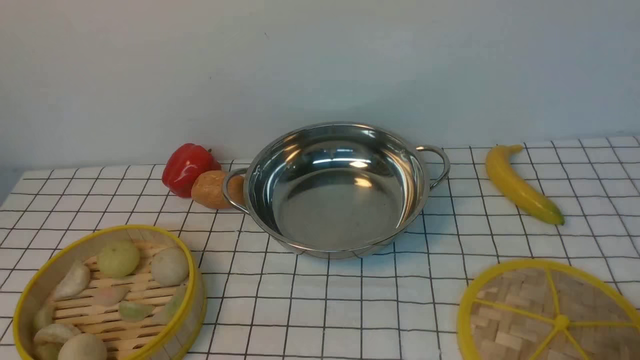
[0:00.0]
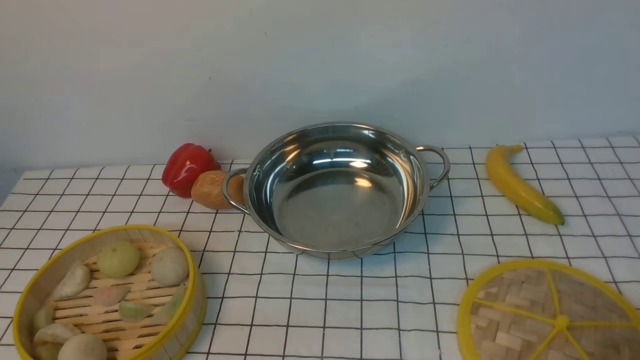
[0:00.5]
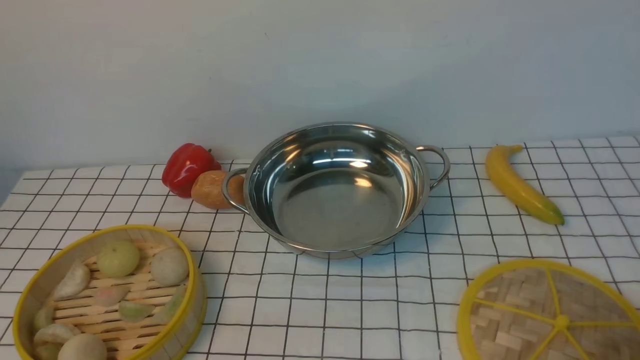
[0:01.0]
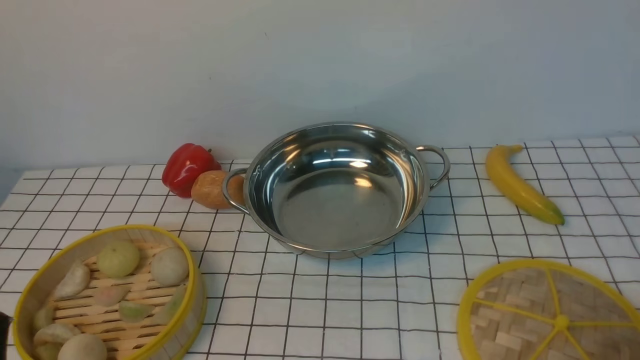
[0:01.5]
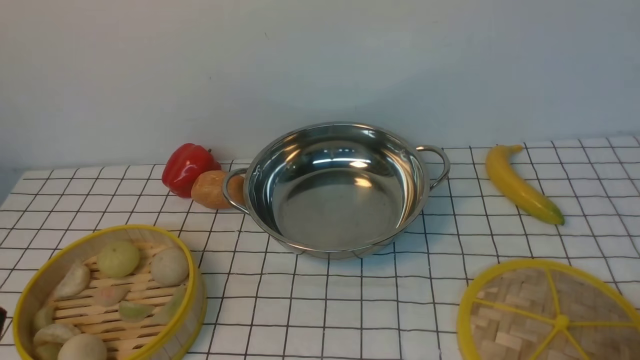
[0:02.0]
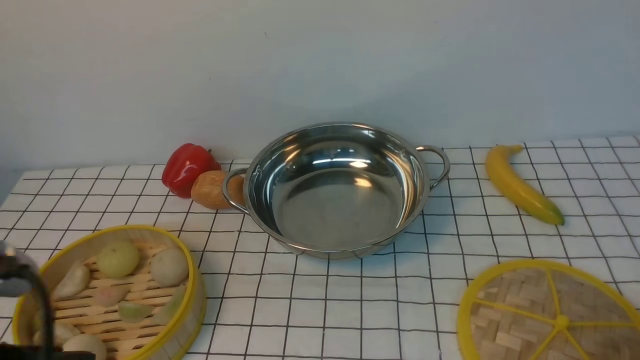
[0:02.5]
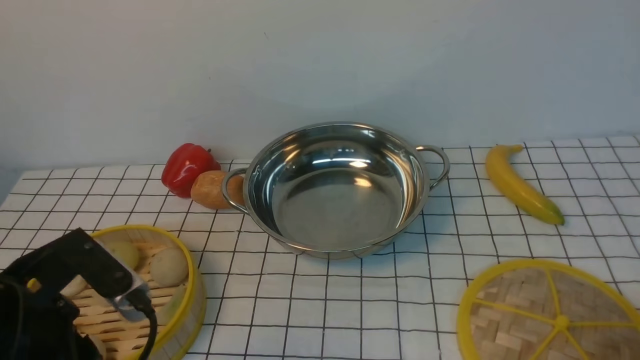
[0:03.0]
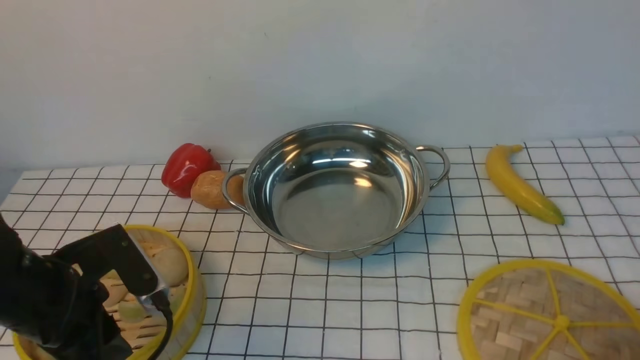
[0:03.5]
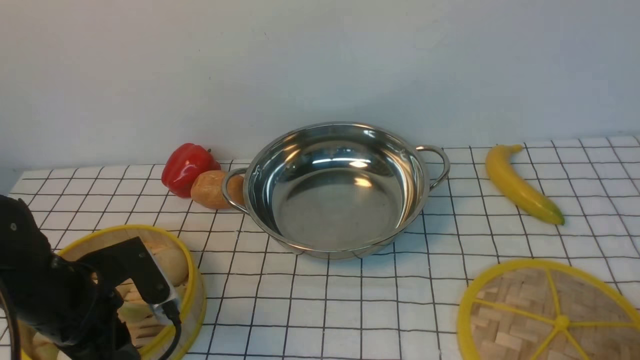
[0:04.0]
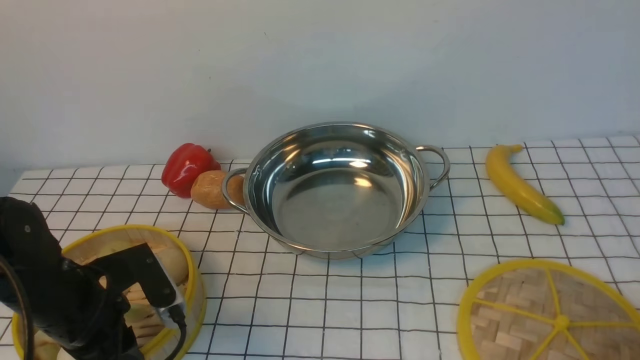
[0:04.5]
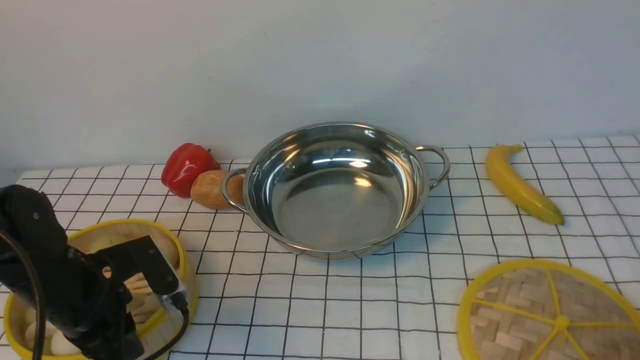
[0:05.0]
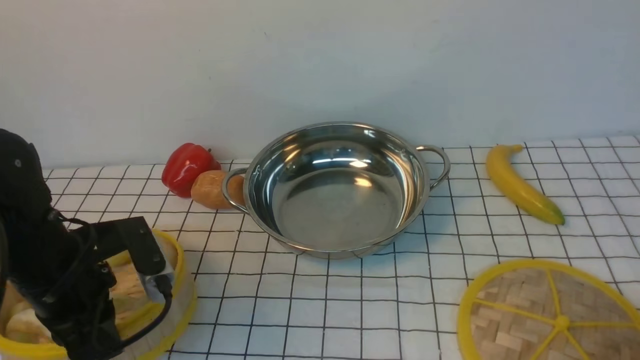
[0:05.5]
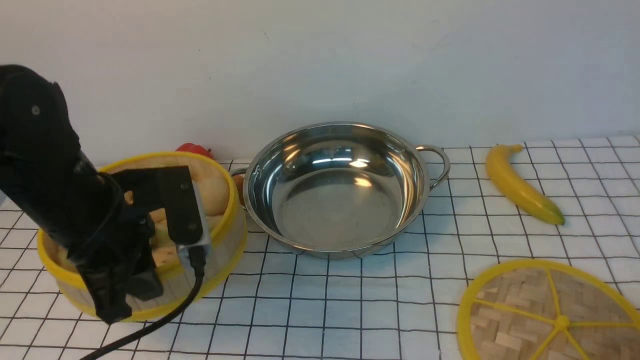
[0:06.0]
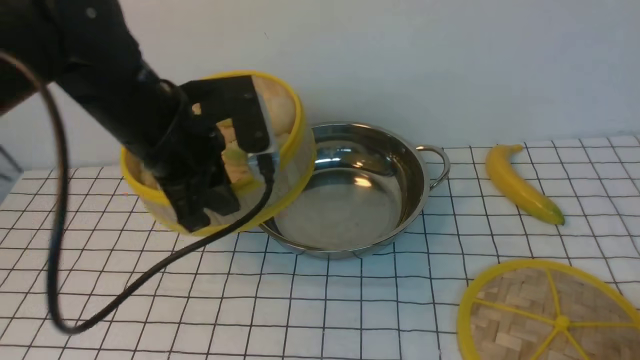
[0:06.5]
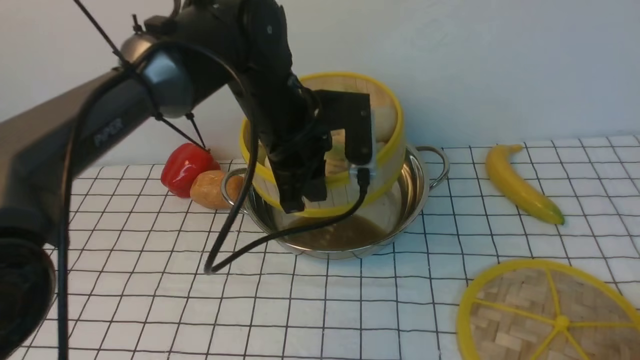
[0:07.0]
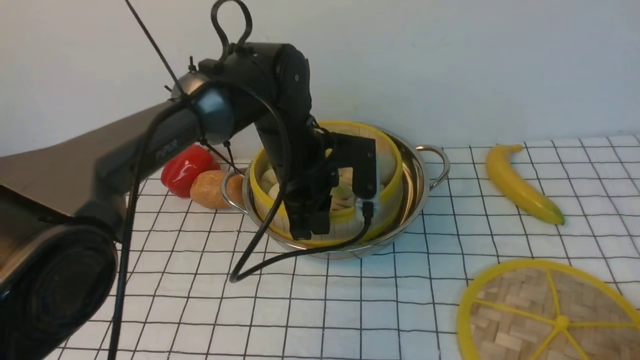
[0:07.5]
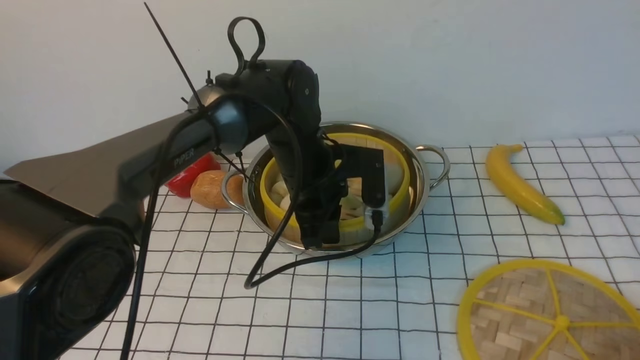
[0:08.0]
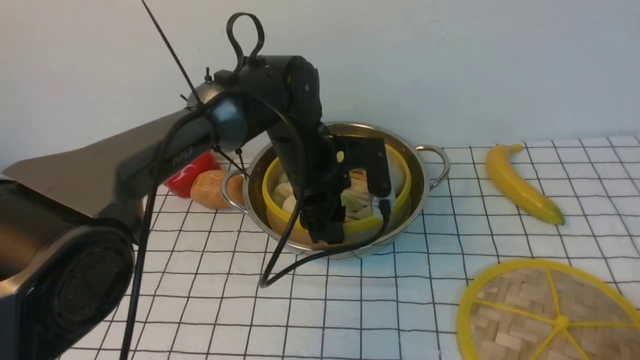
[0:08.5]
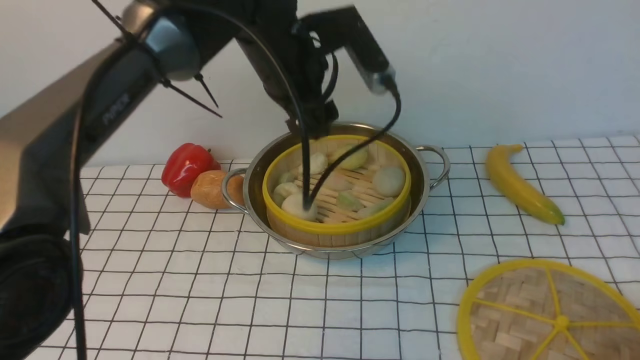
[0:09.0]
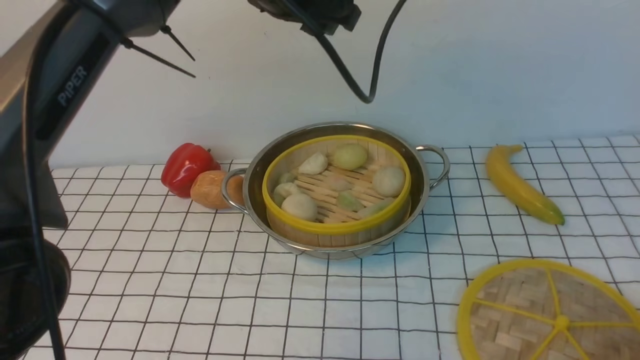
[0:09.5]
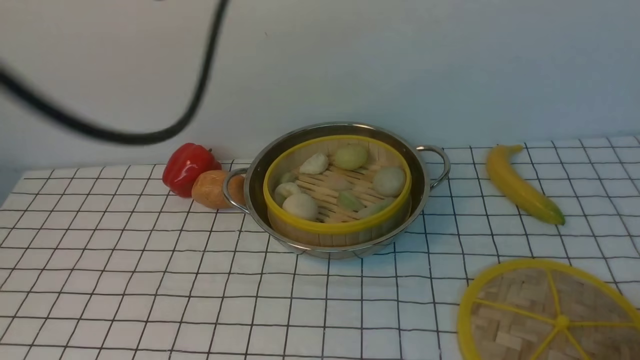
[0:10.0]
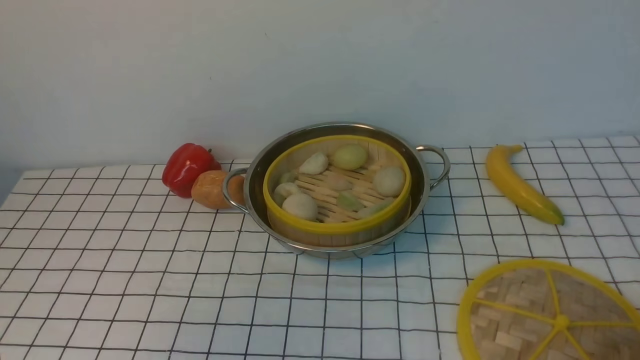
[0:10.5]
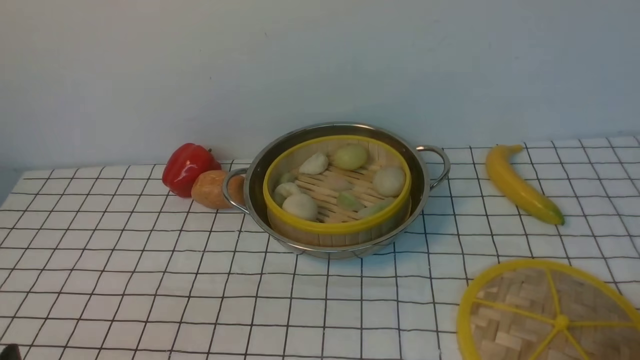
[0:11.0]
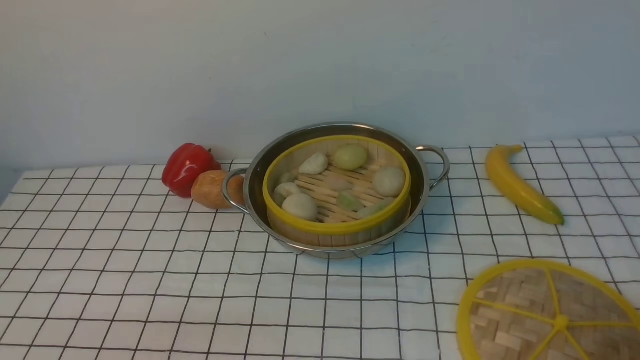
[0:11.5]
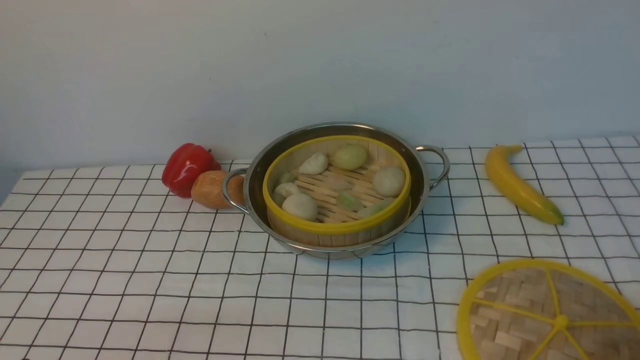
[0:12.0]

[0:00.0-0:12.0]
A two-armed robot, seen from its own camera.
Task of the whole recording: place the steamer in the pot on the white tablecloth, and put the lid on the steamer.
Step, 0:00.0 to 0:05.5: use the left arm to lift the steamer closest to it.
Step, 0:06.0 to 0:08.5: use the left arm to put the steamer into the iron steamer pot in the middle.
0:02.0 to 0:04.0: The left gripper is displaced forward and downward by approximately 20 cm.
0:04.0 to 0:06.0: The left gripper moves upward and to the right, approximately 10 cm, and closes its fingers.
0:06.0 to 0:08.0: The left gripper goes approximately 25 cm to the right, forward and downward.
0:08.0 to 0:10.0: The left gripper heads upward, to the left and backward, covering approximately 30 cm, and opens up.
0:10.0 to 0:12.0: The left gripper is displaced downward and backward by approximately 35 cm.

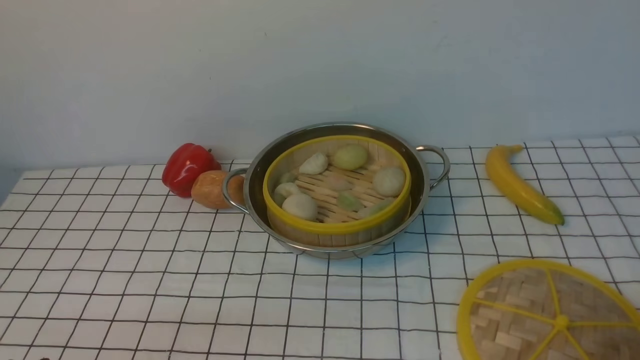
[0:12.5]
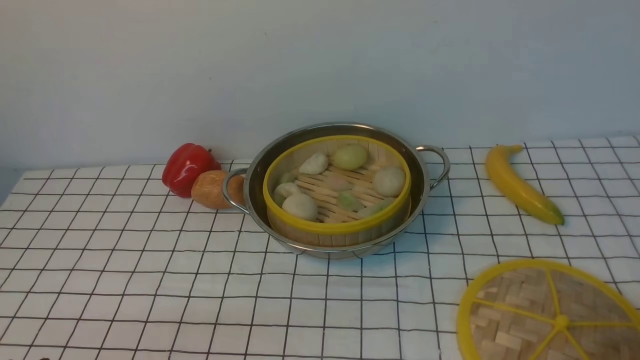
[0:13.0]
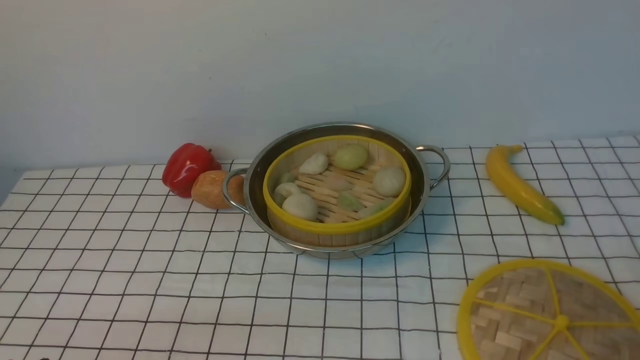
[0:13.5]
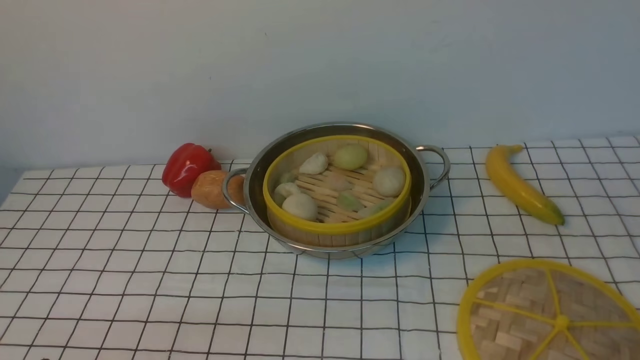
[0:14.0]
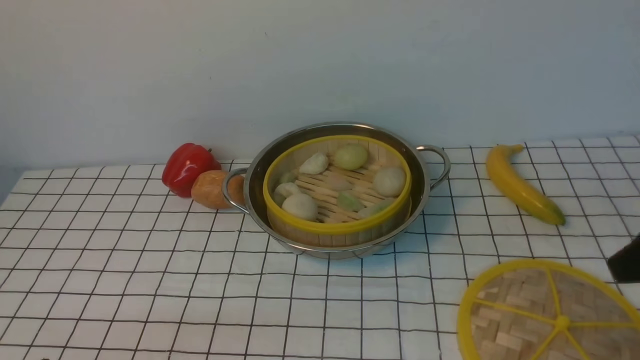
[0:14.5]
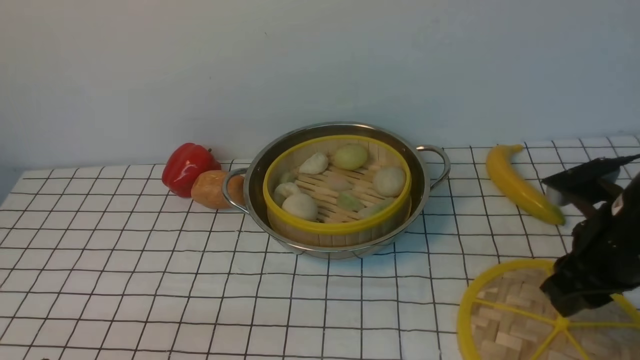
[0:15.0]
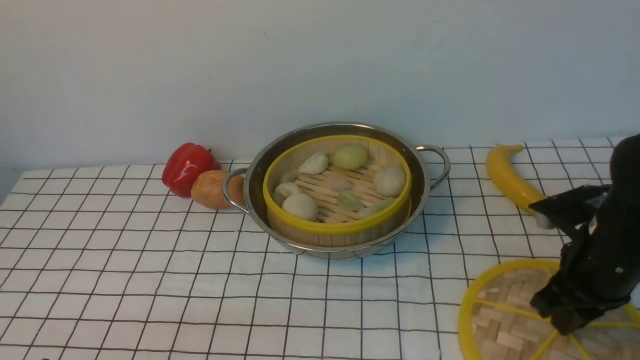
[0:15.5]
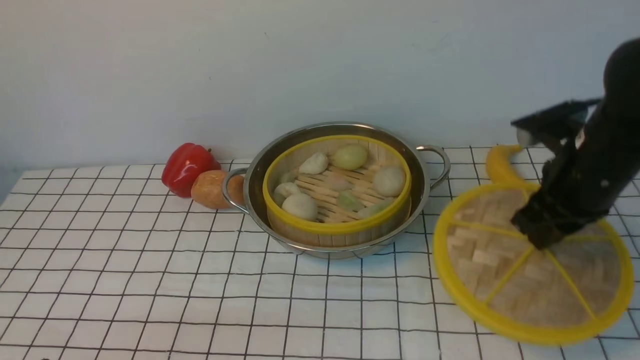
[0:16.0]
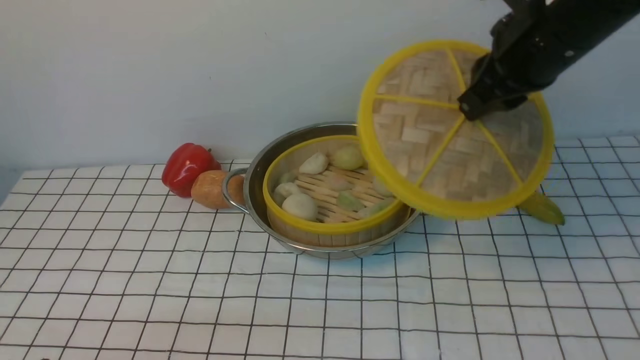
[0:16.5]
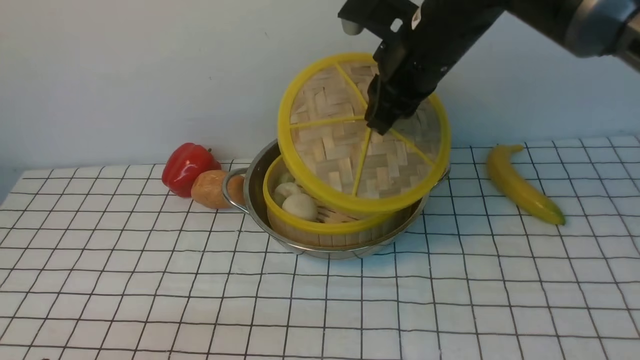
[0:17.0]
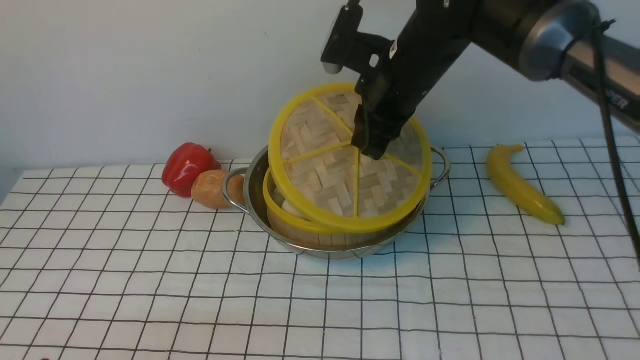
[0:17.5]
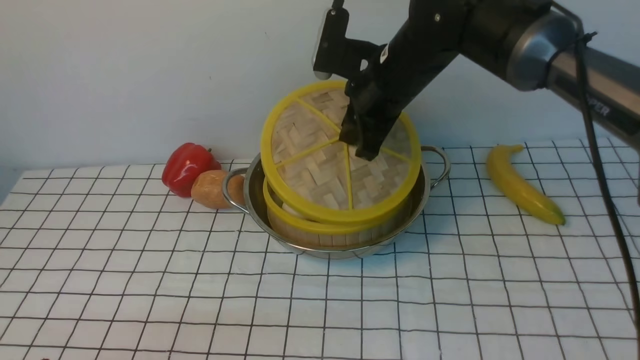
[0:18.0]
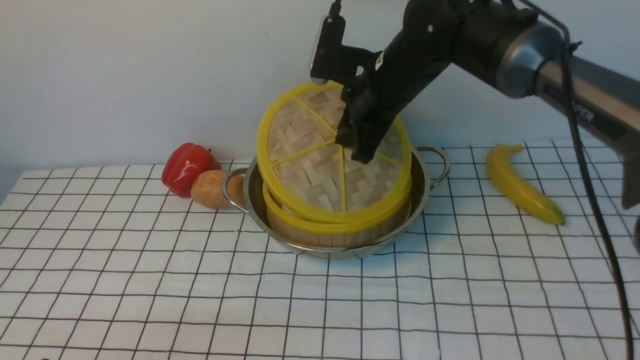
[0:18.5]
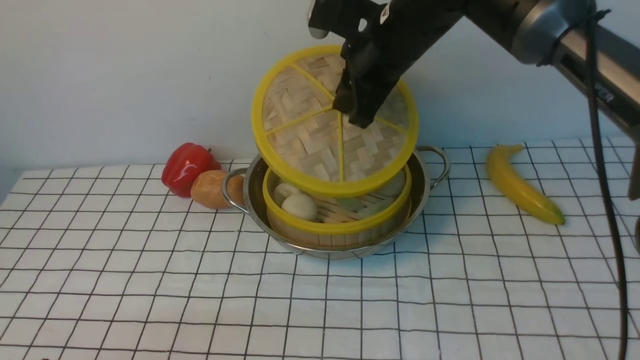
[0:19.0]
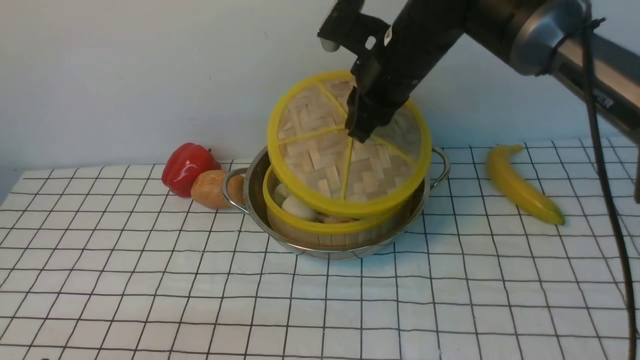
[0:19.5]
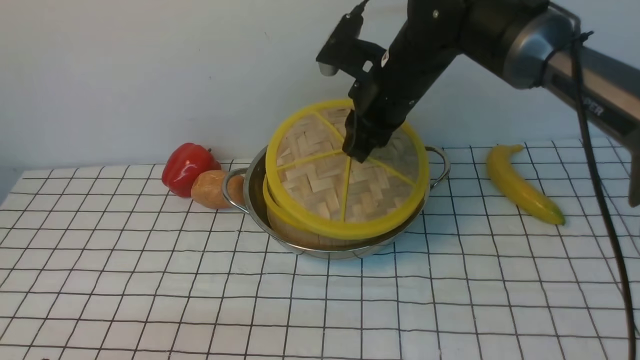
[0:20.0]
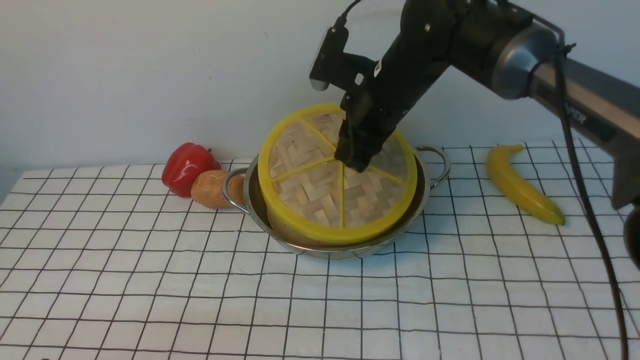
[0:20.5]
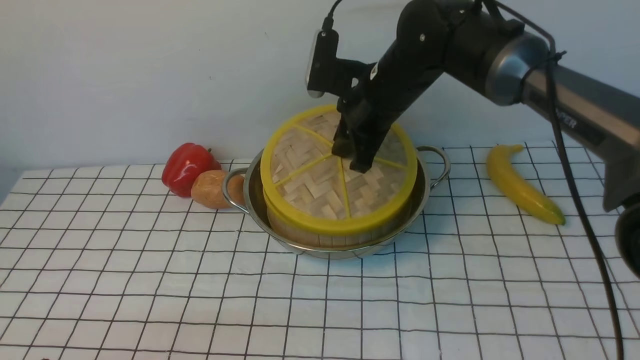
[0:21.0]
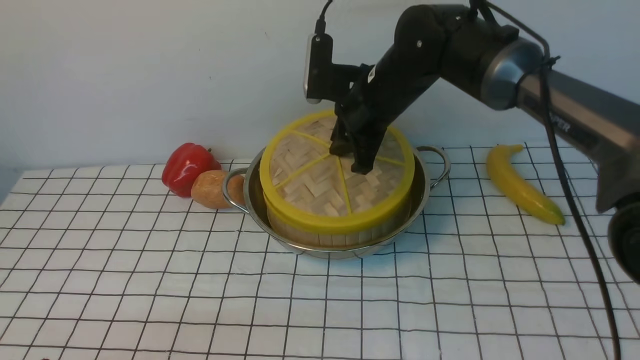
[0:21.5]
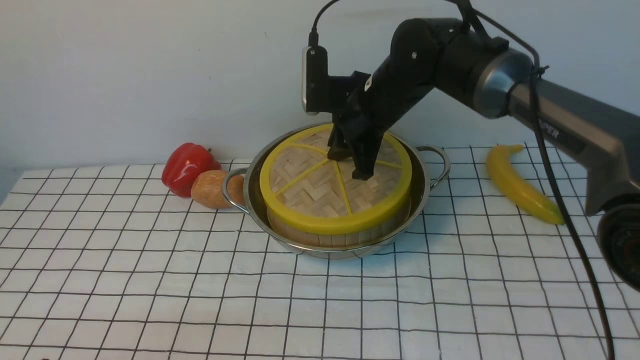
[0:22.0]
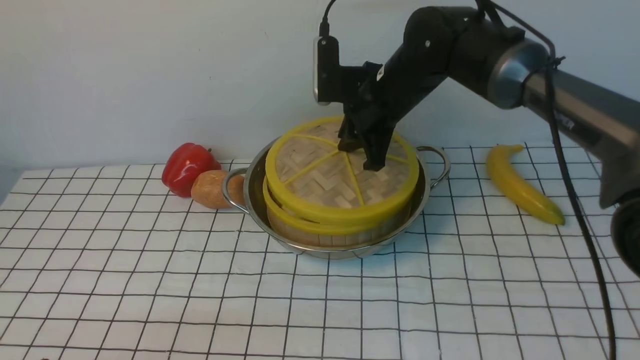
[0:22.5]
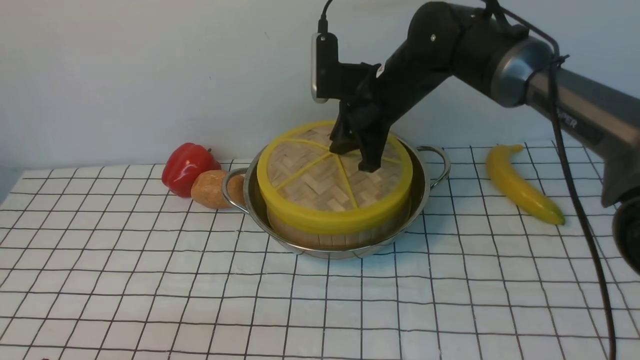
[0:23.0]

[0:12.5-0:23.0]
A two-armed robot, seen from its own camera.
Task of the whole recording: place the steamer in the pot on the white tablecloth, and put the lid on the steamer.
Step, 0:12.5 to 0:15.5: use the right arm to lift the lid of the steamer.
0:14.5 to 0:16.5: The right gripper heads forward and to the left, covering about 20 cm, travels downward and back again, approximately 10 cm each way, and closes up.
0:16.5 to 0:19.0: The right gripper moves to the left and forward, some 15 cm.
0:19.0 to 0:21.0: The right gripper travels downward by about 5 cm.
0:21.0 to 0:23.0: The grippers stay close to where they were, moving slightly.
